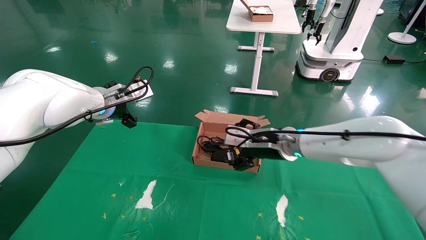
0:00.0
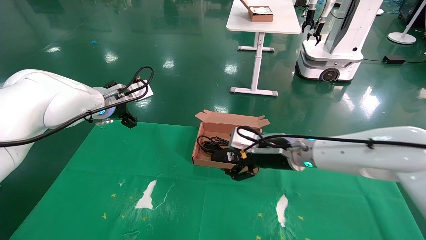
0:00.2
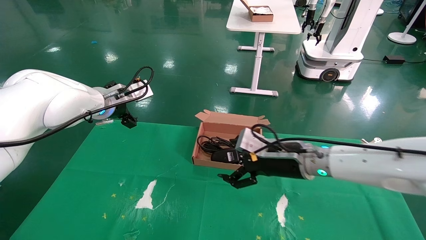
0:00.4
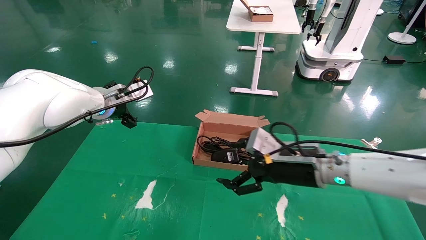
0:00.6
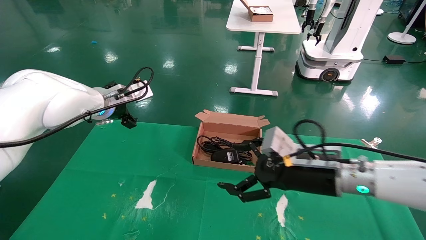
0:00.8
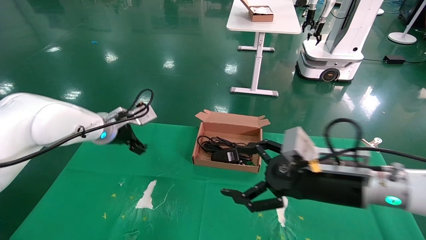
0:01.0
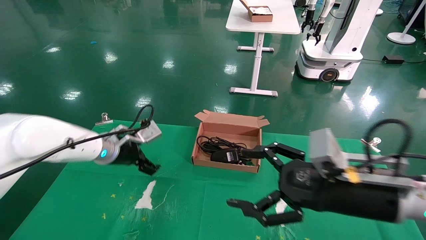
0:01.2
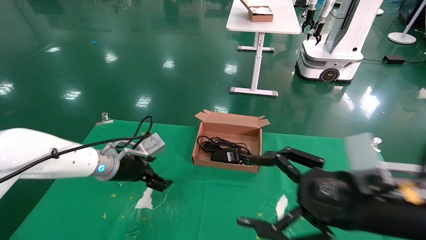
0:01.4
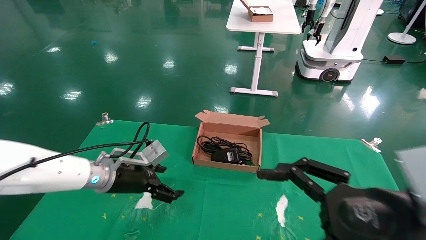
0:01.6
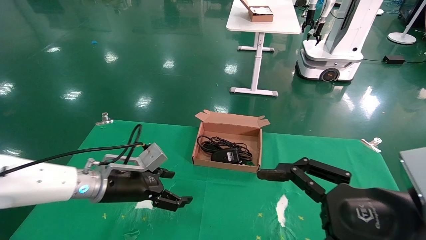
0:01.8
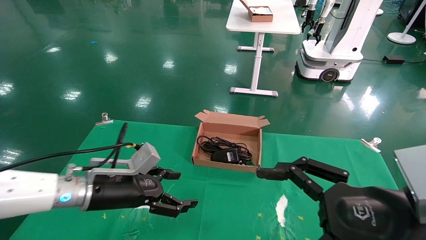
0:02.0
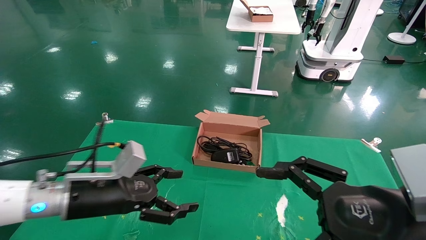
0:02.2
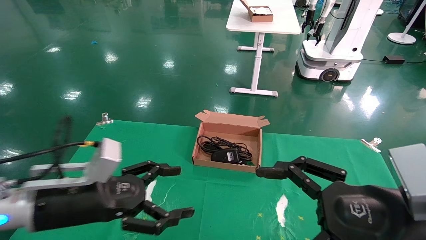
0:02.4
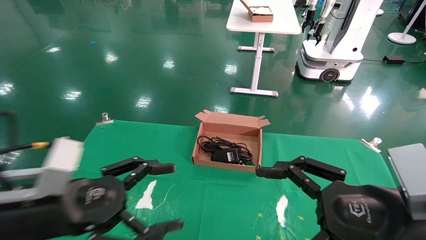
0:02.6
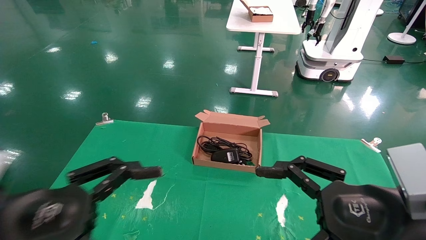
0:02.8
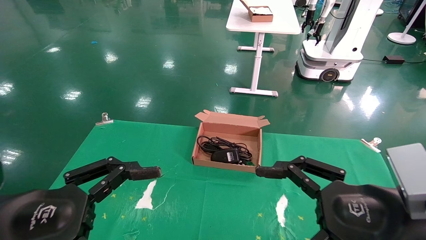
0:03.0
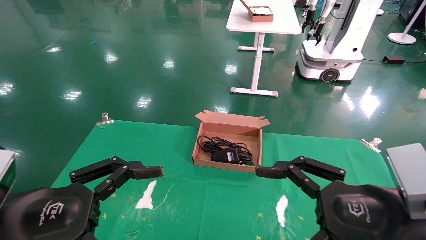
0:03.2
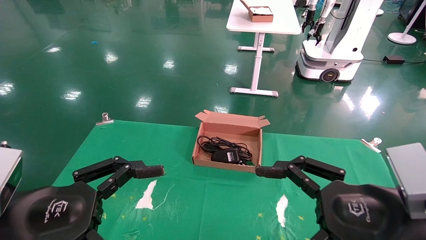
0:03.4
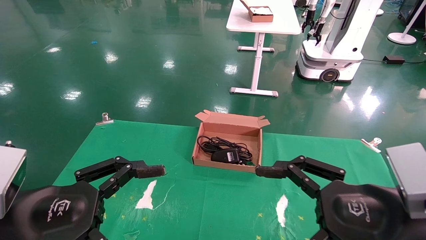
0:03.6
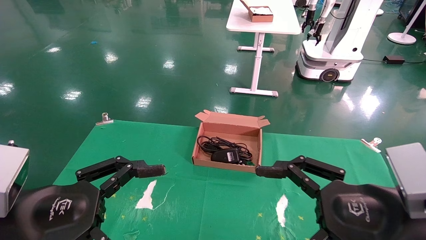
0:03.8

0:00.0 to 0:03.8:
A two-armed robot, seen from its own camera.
0:00.0 to 0:01.2: The left gripper heads downward, covering about 10 cm, while the right gripper is displaced backward and to the right by roughly 20 cm.
0:01.2 to 0:02.6: The left gripper travels backward by some 25 cm. The right gripper travels backward by some 5 cm.
0:02.6 to 0:03.8: The grippers stay close to where they were, moving slightly.
